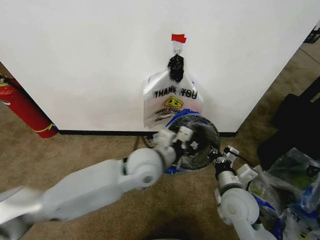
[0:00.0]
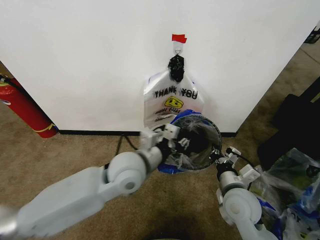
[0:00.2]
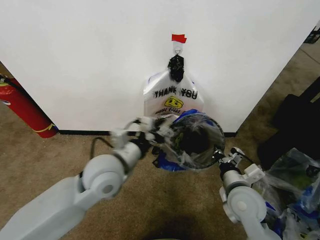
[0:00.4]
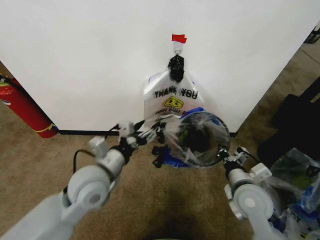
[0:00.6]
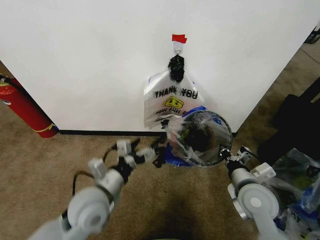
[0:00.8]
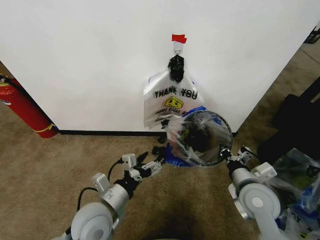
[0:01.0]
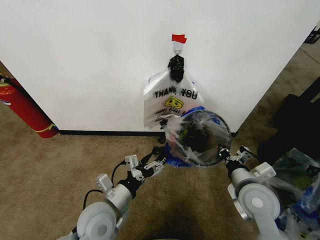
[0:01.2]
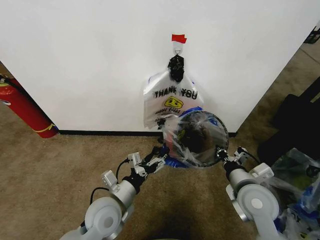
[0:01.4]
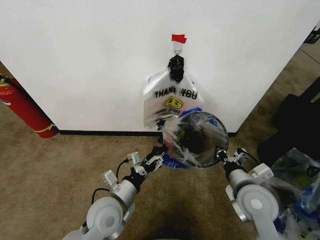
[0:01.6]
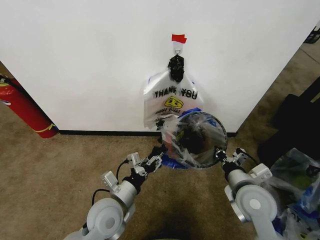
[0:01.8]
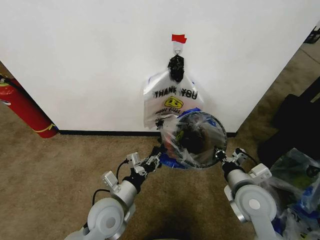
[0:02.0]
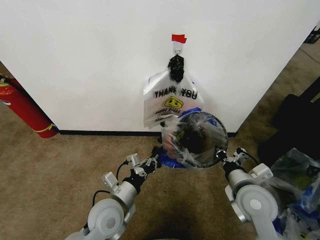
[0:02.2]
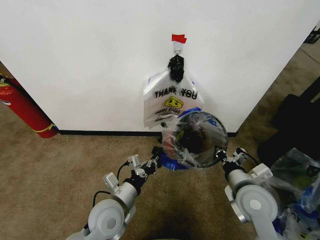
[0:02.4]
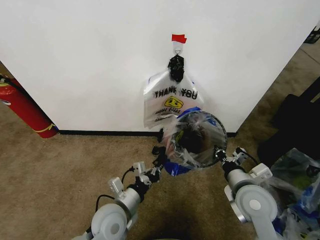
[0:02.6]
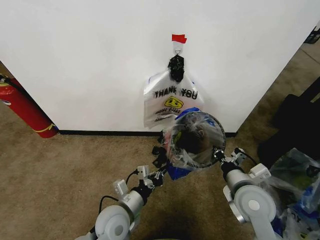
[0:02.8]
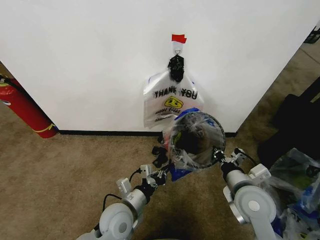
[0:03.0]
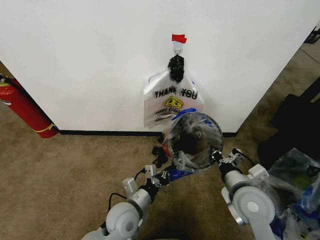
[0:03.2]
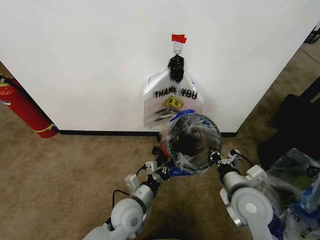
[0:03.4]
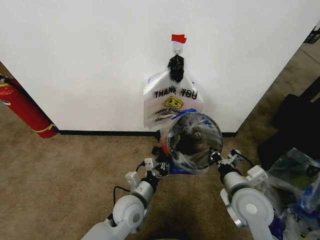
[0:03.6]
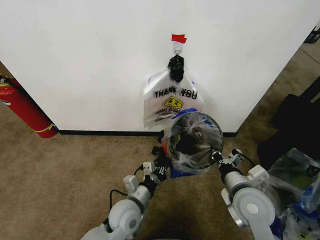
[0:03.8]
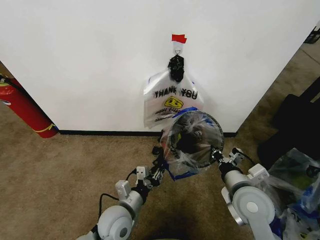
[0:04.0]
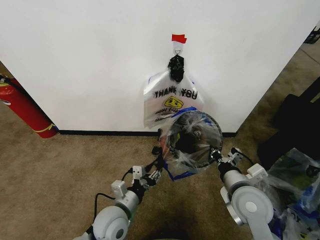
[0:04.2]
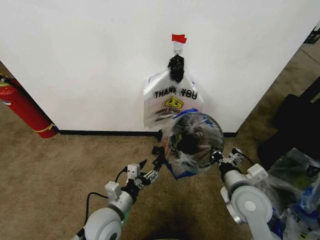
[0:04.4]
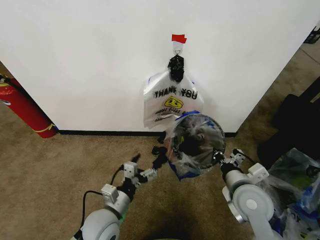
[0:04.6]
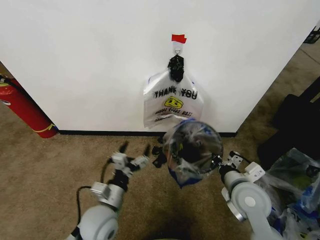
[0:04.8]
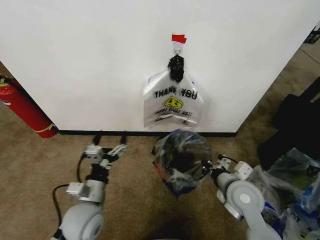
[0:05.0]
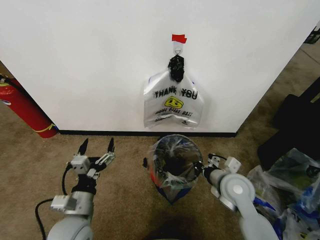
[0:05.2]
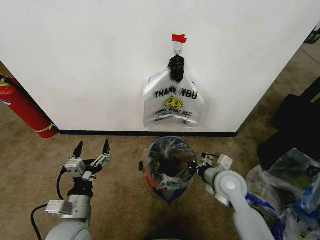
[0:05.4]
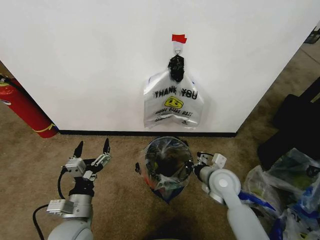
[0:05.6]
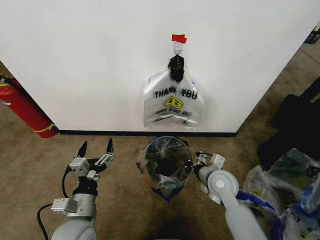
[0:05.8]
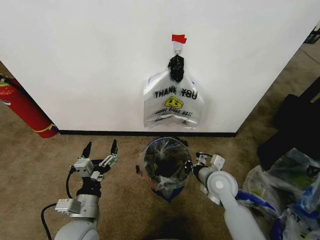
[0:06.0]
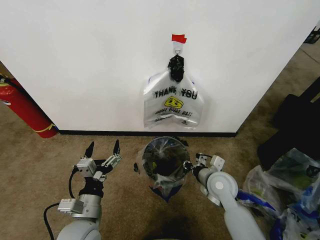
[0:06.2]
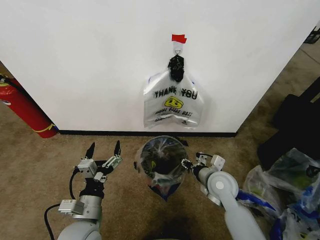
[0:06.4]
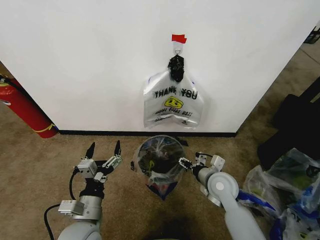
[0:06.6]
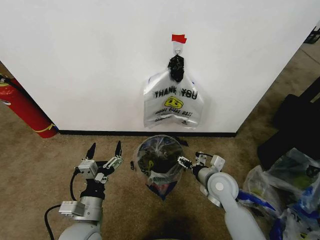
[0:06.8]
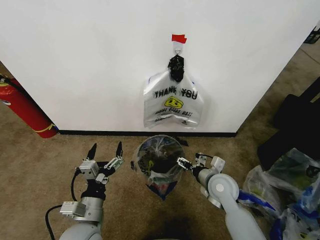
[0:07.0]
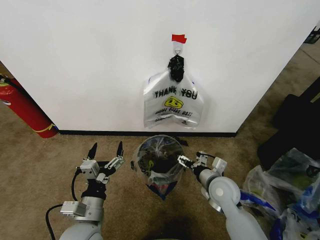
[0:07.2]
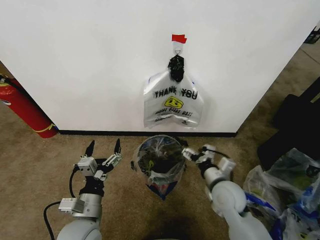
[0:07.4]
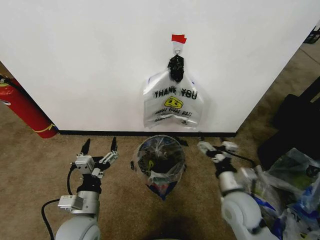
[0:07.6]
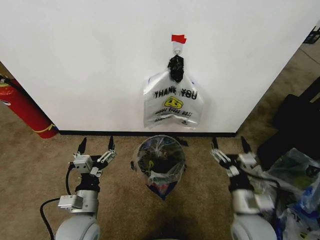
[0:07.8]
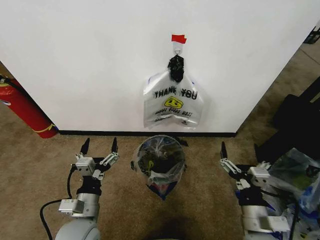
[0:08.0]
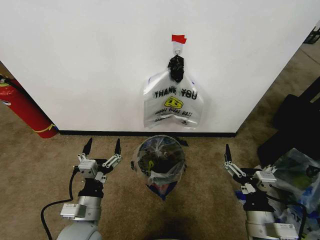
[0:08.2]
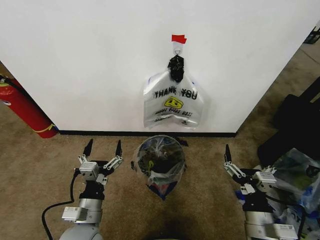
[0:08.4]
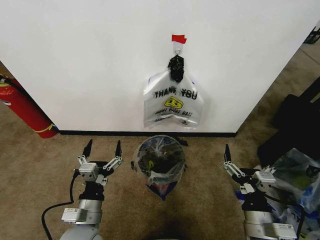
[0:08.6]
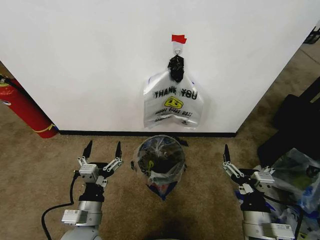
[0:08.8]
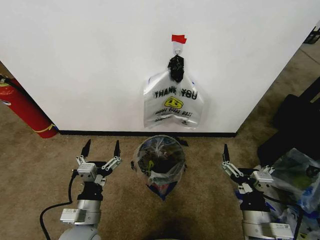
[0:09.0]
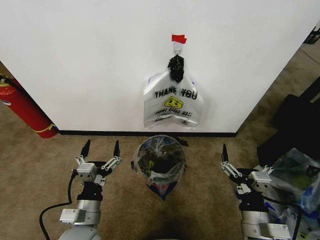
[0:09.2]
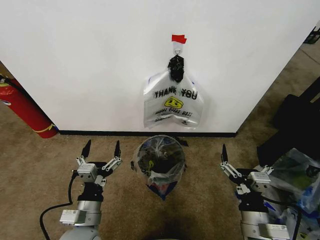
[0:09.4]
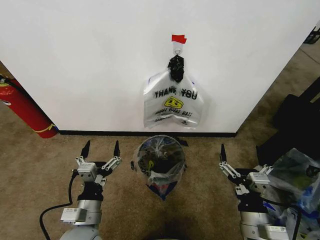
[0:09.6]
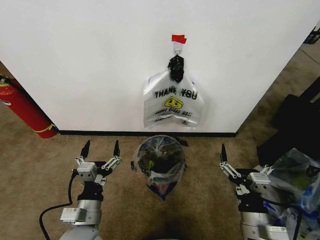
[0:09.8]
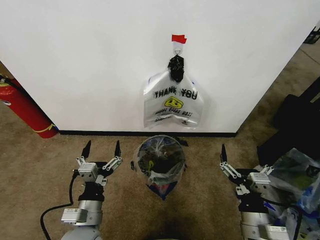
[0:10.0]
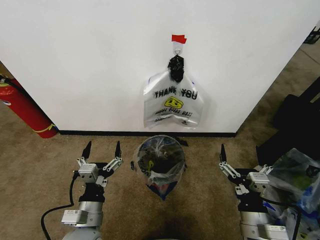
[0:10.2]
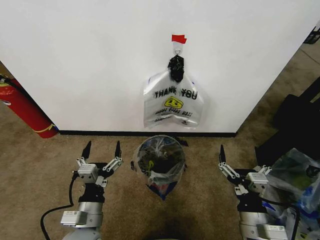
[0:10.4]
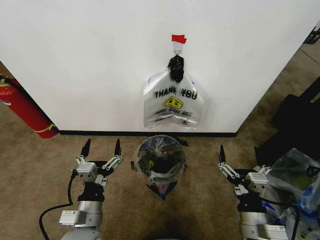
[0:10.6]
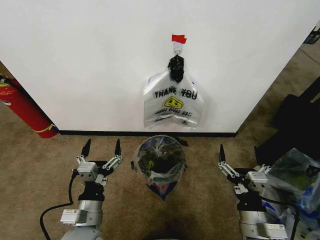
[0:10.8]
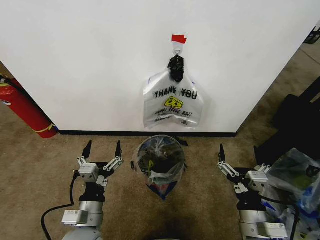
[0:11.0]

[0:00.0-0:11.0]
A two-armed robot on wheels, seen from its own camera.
Task of the whole recording: Pick up the garbage bag from the wall and place it over the trash bin.
0:00.0 to 0:01.6: The left gripper heads to the left, downward and backward, covering about 20 cm, and opens.
0:01.6 to 0:03.2: The left gripper shifts by roughly 5 cm, and closes.
0:03.2 to 0:04.8: The left gripper heads to the left, covering some 5 cm, and opens.
0:04.8 to 0:06.2: The right gripper goes some 10 cm forward and downward; the left gripper ends up some 5 cm from where it was.
0:06.2 to 0:07.8: The right gripper travels backward by approximately 15 cm, and opens.
0:07.8 to 0:09.4: The right gripper moves backward, some 5 cm.
0:09.4 to 0:11.0: The grippers move only a little.
